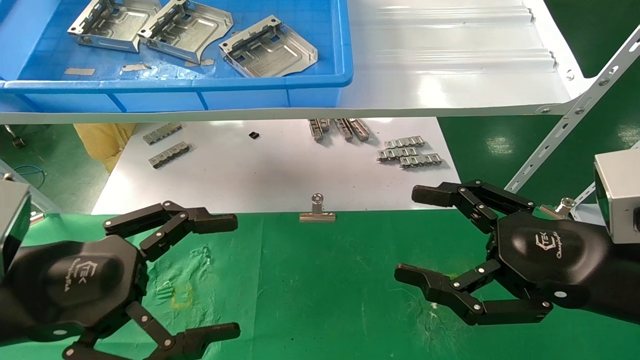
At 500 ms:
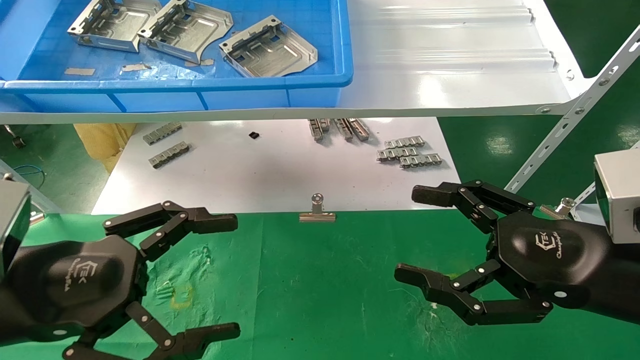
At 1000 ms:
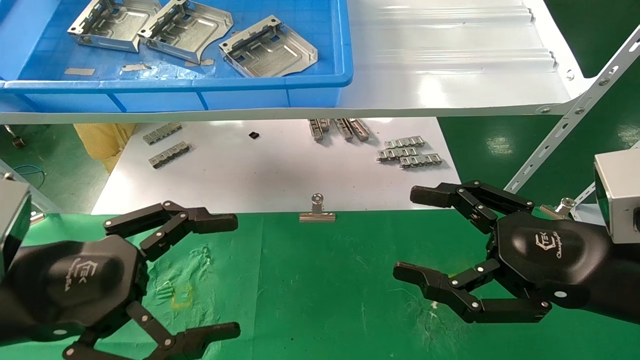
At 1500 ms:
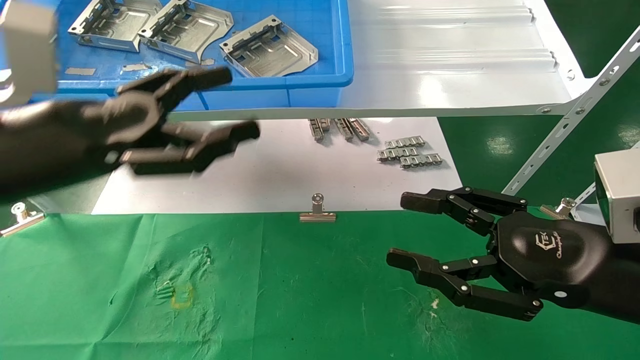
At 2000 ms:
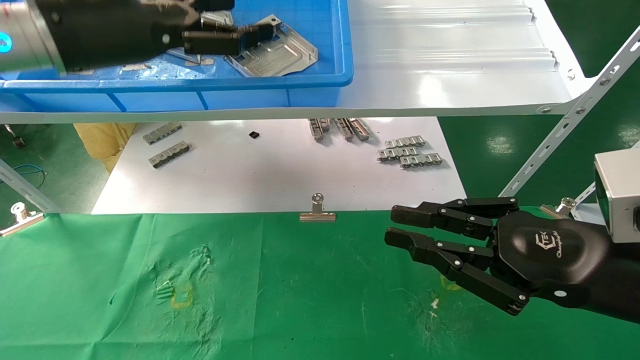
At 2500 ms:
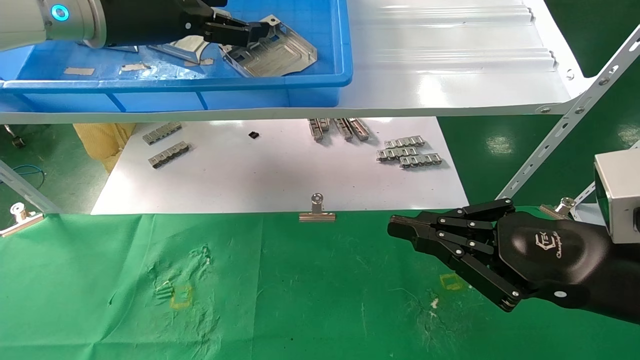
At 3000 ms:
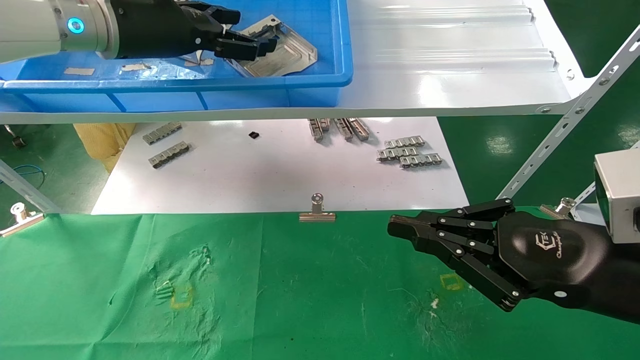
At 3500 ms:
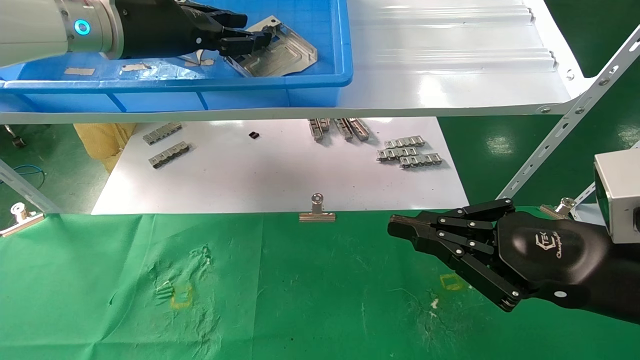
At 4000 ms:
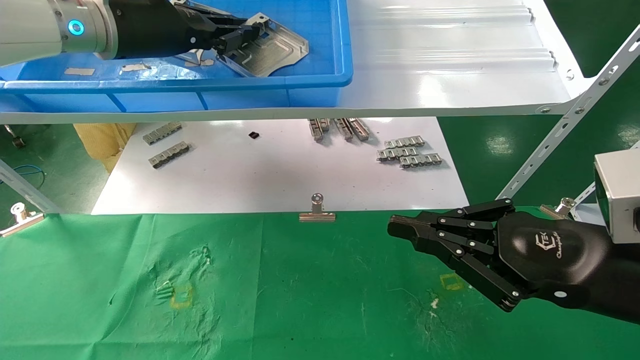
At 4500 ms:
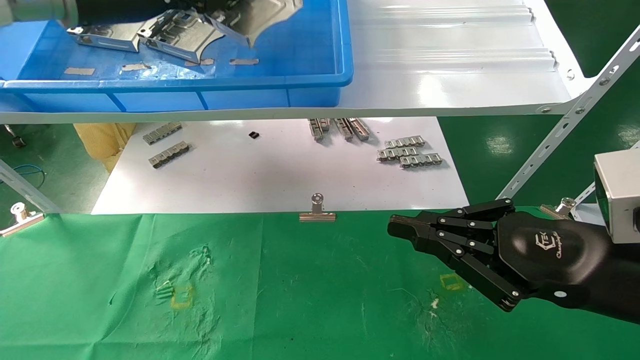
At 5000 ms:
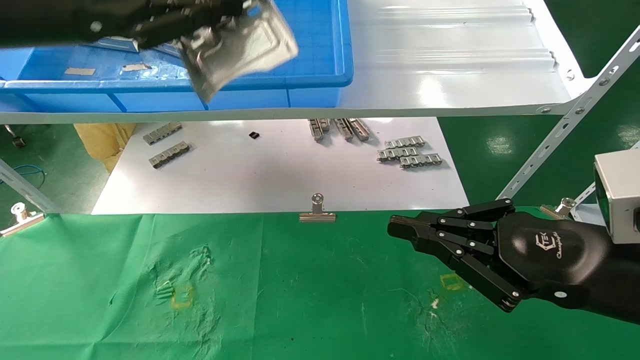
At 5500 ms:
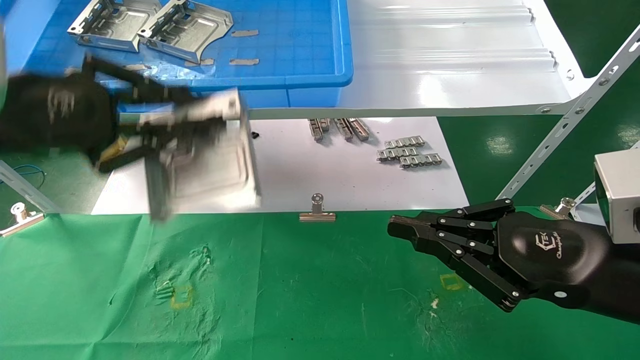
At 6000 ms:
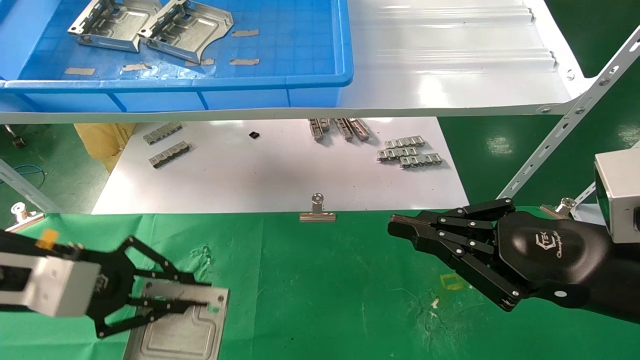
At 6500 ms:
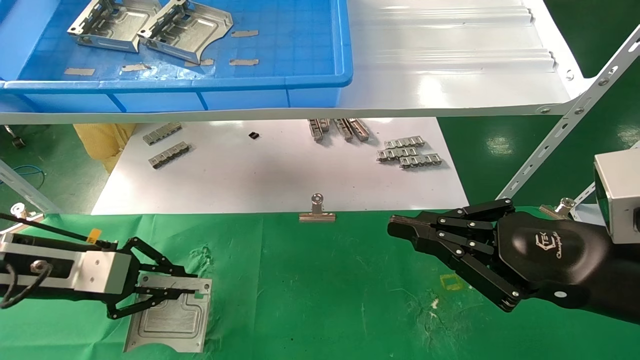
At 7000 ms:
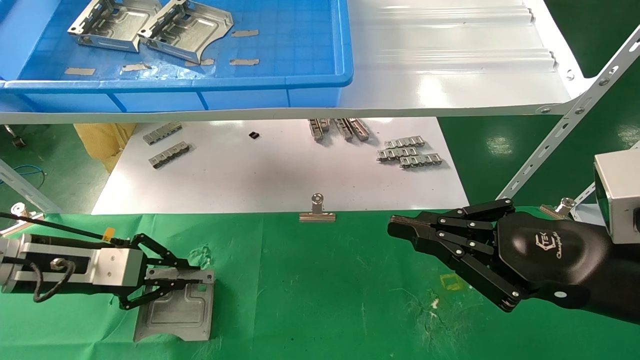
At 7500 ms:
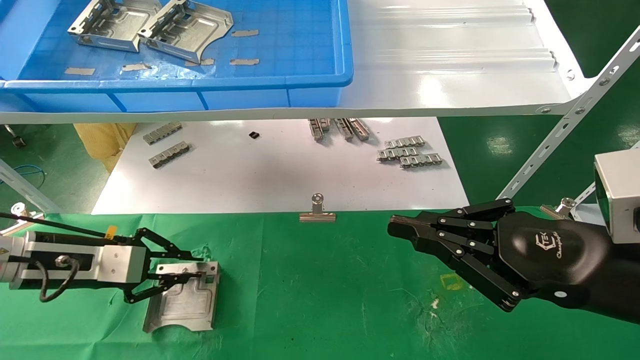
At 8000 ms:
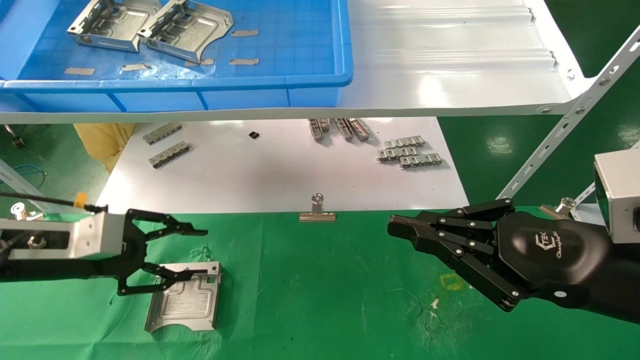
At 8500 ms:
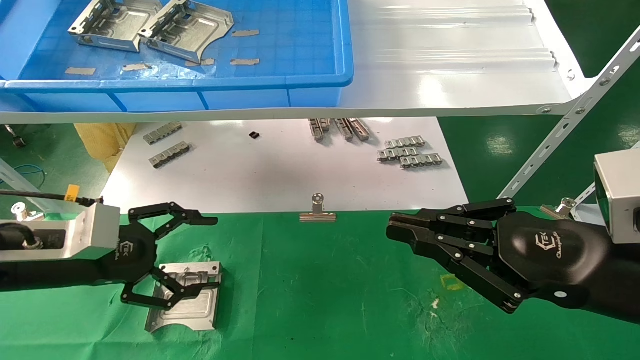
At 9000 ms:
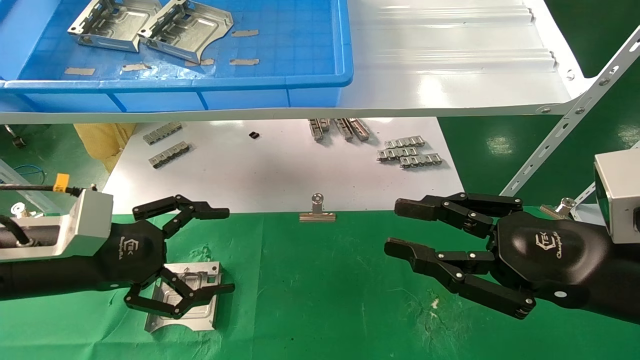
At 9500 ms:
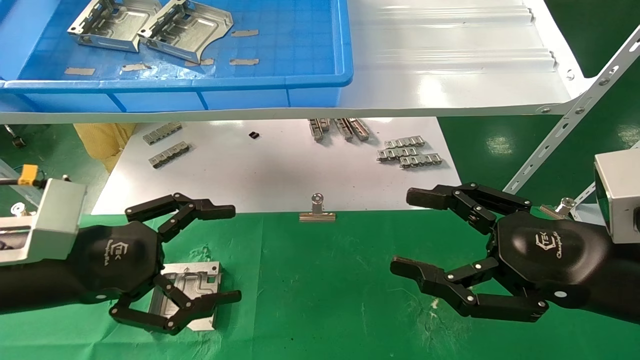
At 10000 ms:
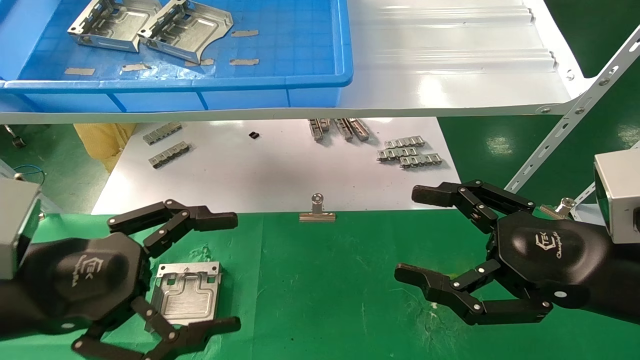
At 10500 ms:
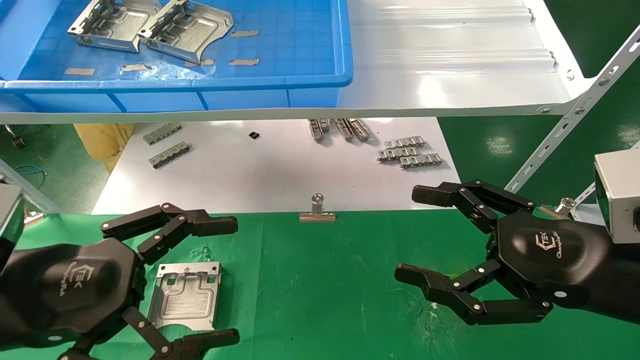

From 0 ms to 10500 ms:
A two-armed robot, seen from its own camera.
Task of the whole recording: use the mechanical arm to pick up the parts and place them on the table.
Step, from 1500 ms to 4000 ms: Pick up the hard drive bracket from the feeding area.
Step, from 4500 ms to 7500 ms: Place the hard drive bracket into the box.
From 0 ms to 2000 ms: The right gripper closes its fingers; the left gripper travels upward and forward by some 25 cm.
From 2000 ms to 4000 ms: The left gripper shifts about 5 cm forward, and closes.
From 4000 ms to 6500 ms: The left gripper travels downward and to the left by approximately 30 cm.
From 6500 ms to 8500 ms: The left gripper opens its fingers.
From 8500 ms to 10500 ms: The left gripper moves backward and to the right, some 15 cm; the right gripper opens its fingers.
